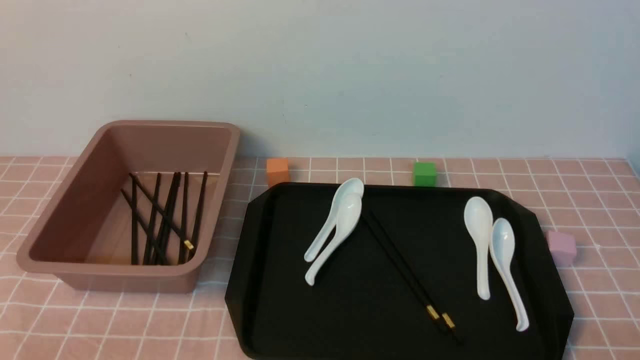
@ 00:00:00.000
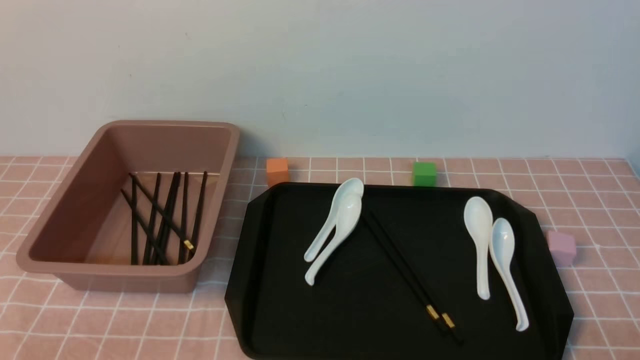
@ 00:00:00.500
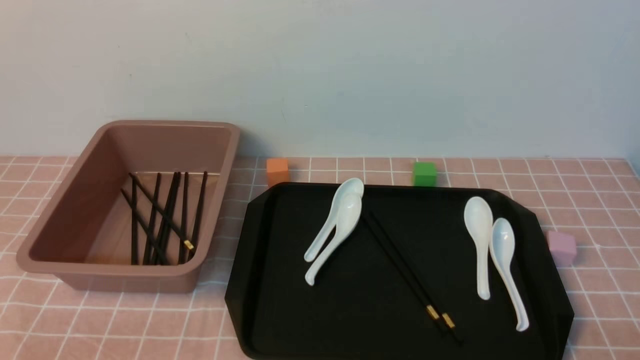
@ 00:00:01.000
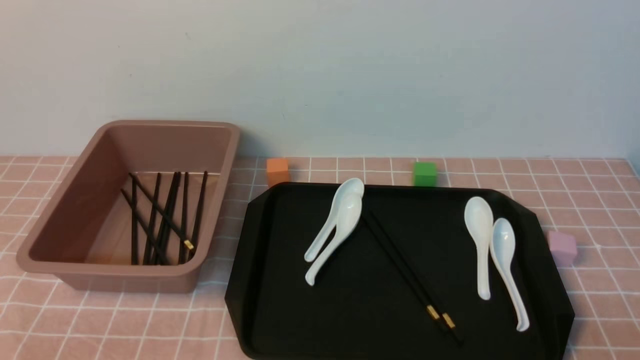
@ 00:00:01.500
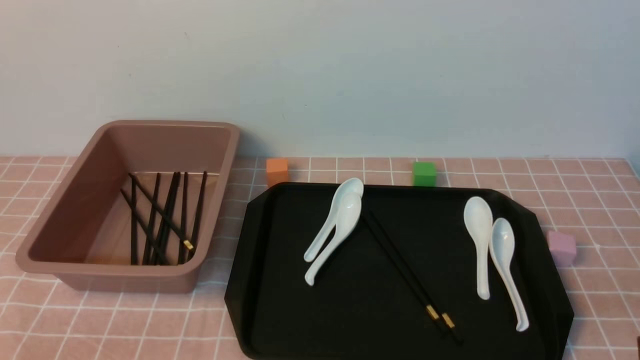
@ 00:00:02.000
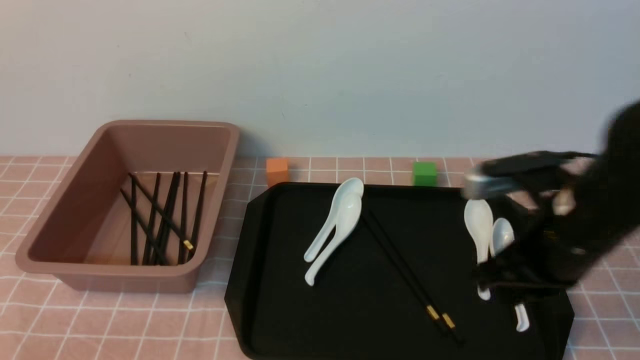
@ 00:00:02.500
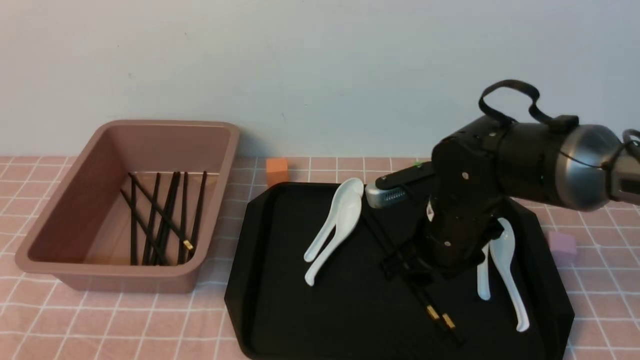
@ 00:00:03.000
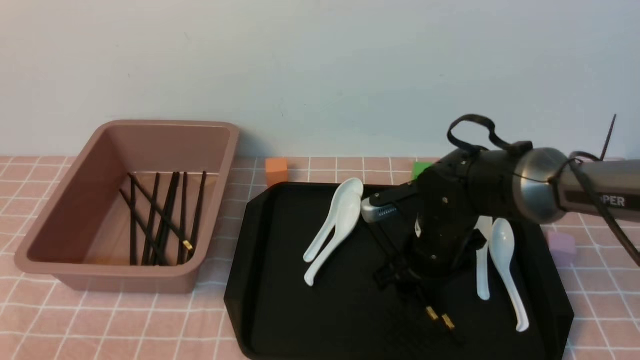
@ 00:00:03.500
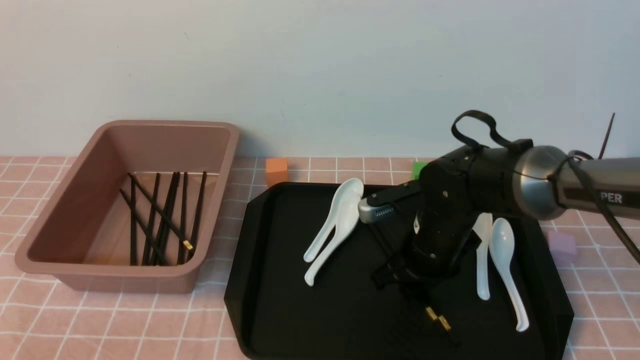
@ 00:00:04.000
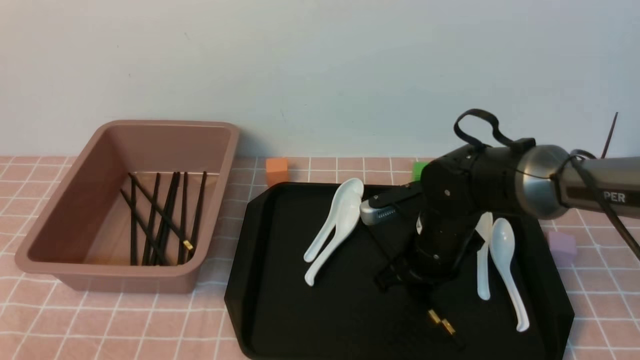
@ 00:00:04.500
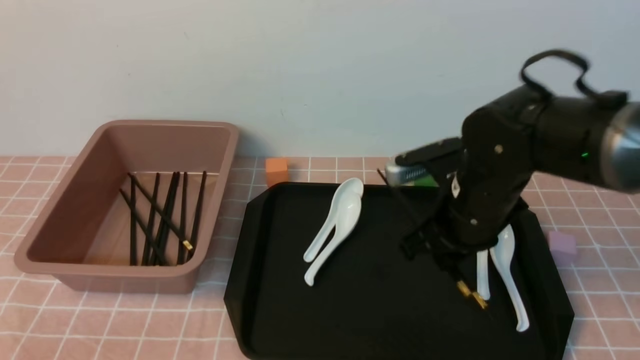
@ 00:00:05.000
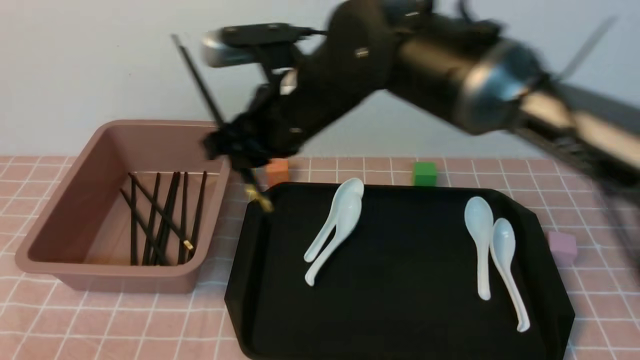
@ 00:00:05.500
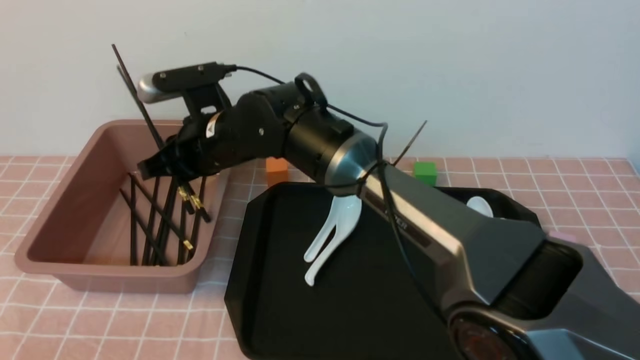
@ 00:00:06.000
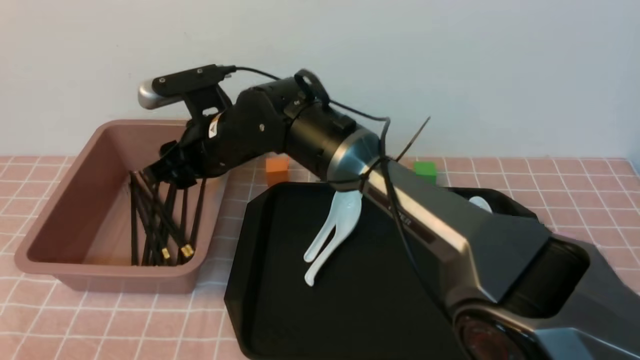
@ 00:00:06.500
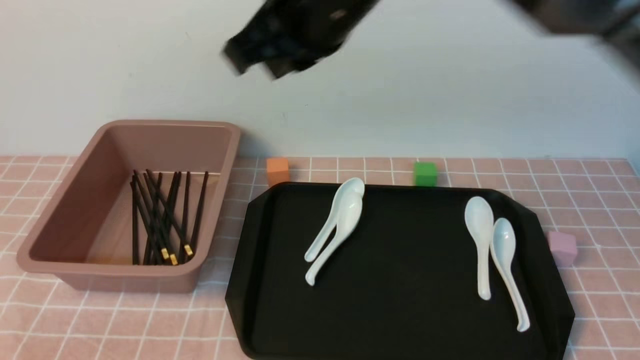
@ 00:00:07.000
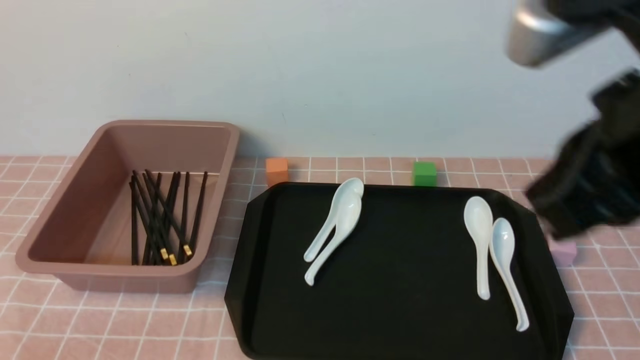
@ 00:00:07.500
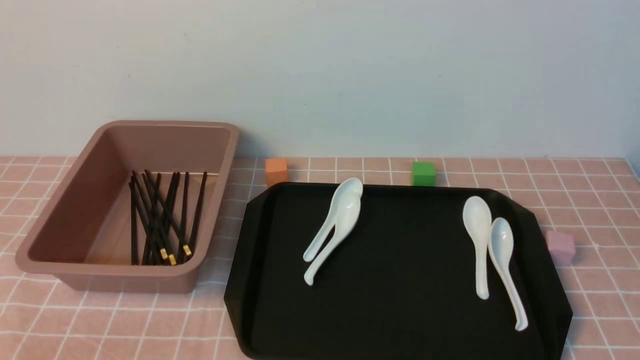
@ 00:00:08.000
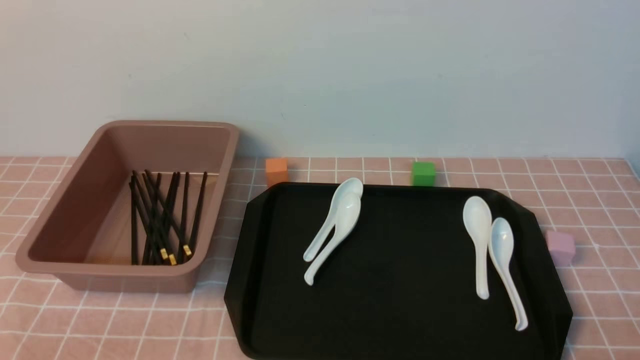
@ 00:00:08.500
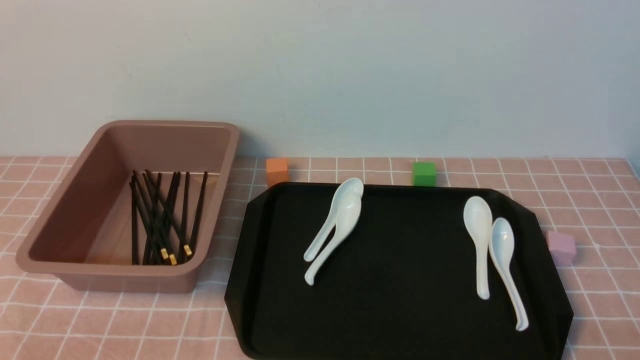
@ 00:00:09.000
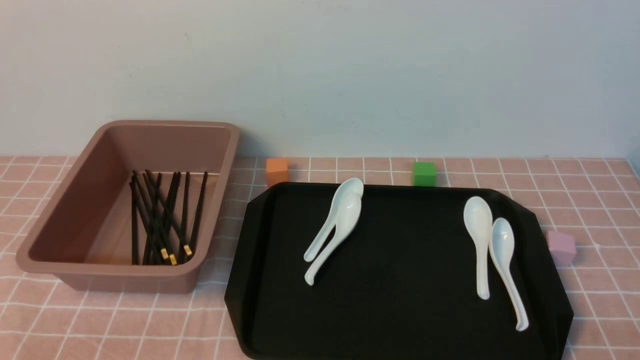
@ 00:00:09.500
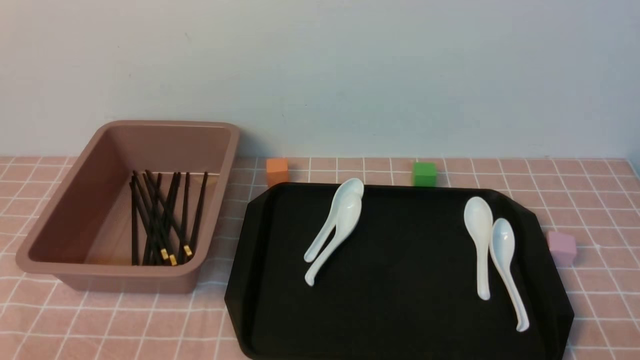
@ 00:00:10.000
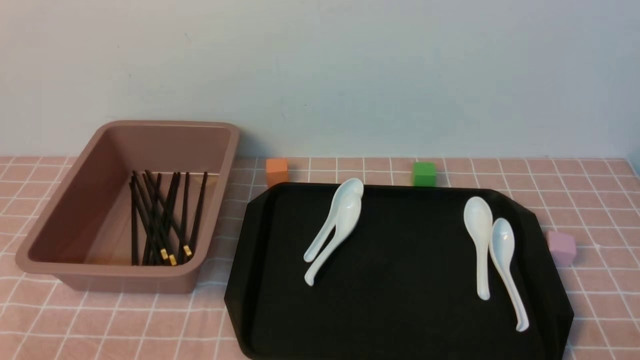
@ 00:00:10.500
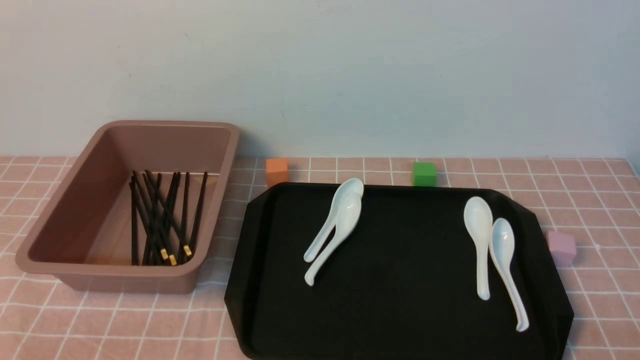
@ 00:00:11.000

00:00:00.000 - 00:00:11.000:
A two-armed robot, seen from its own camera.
Step, 00:00:00.000 - 00:00:04.500: use the right arm to grab a pair of chopsticks.
Step, 00:00:05.000 - 00:00:06.500: use the right arm to put the chopsticks into the lunch box.
00:00:02.000 - 00:00:03.500: The right gripper goes some 30 cm forward, to the left and downward, and opens.
00:00:03.500 - 00:00:05.500: The right gripper is displaced upward and to the left by approximately 20 cm, and closes its fingers.
00:00:05.500 - 00:00:07.500: The right gripper is displaced backward, to the right and upward by about 30 cm, and opens, then closes once more.
00:00:07.500 - 00:00:09.000: The right gripper goes approximately 30 cm downward and to the right.
00:00:09.000 - 00:00:11.000: The two grippers keep their place.
